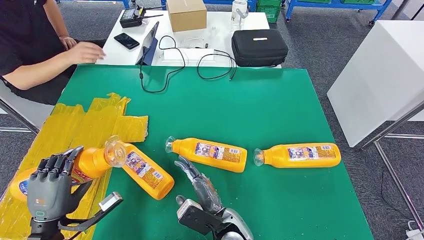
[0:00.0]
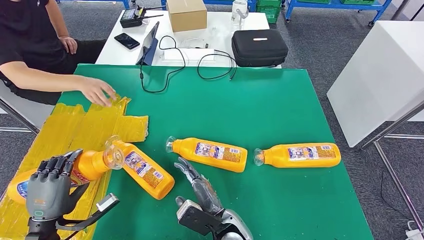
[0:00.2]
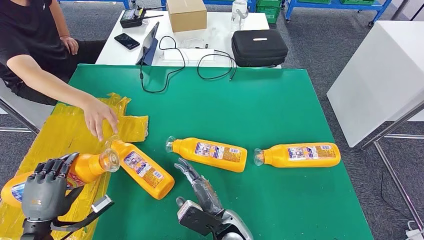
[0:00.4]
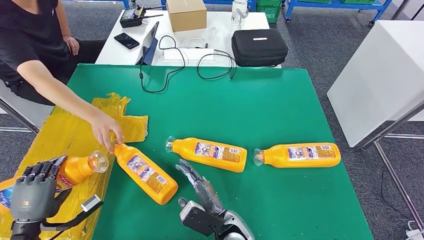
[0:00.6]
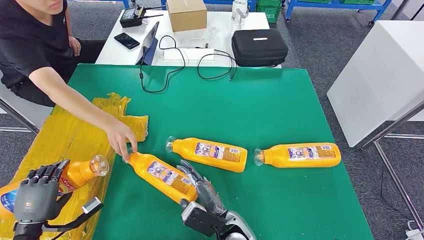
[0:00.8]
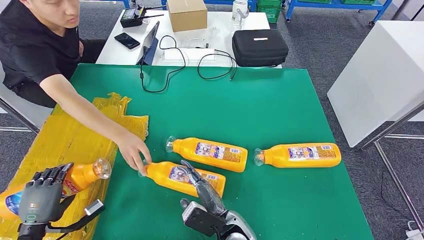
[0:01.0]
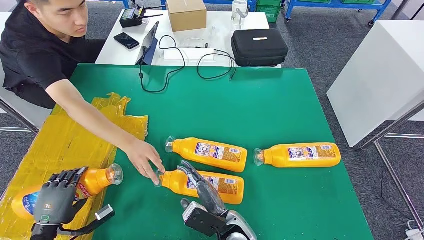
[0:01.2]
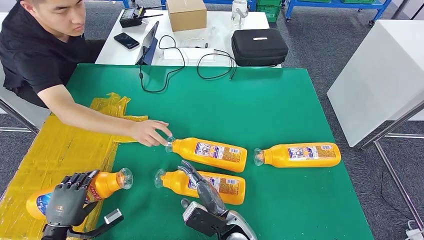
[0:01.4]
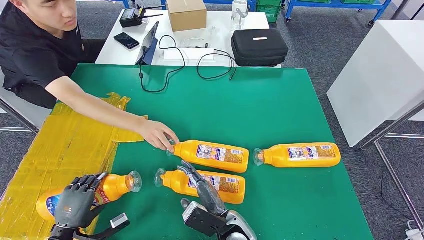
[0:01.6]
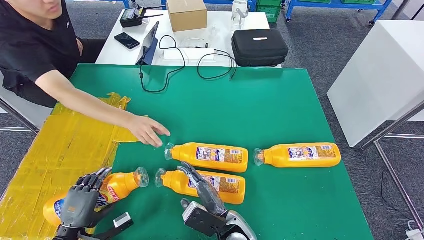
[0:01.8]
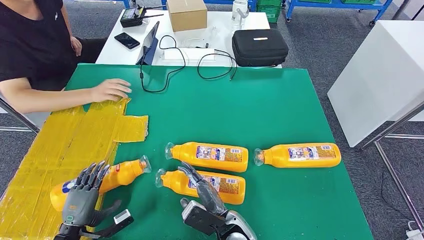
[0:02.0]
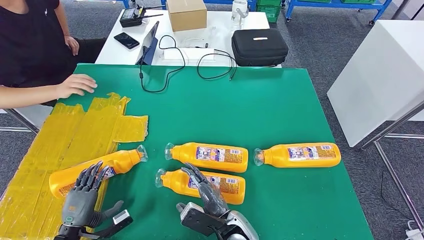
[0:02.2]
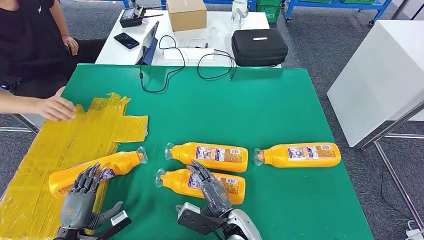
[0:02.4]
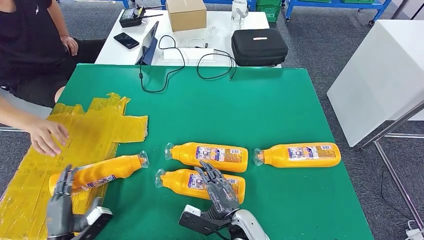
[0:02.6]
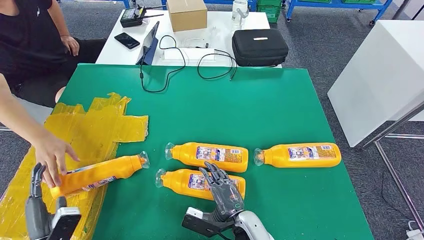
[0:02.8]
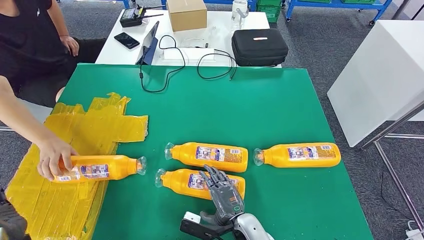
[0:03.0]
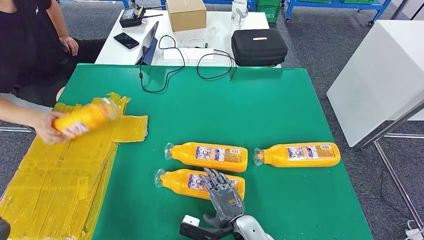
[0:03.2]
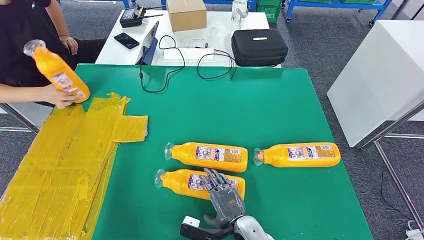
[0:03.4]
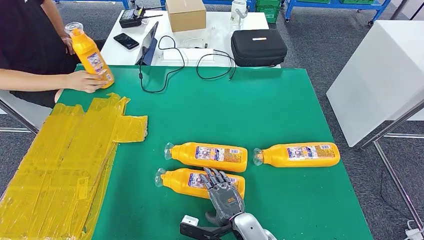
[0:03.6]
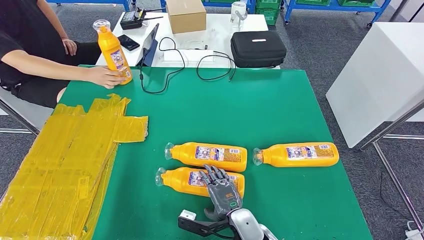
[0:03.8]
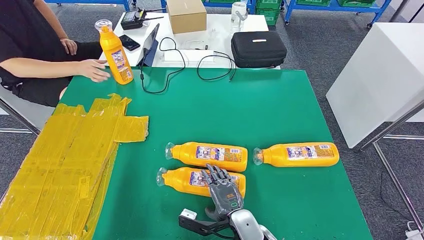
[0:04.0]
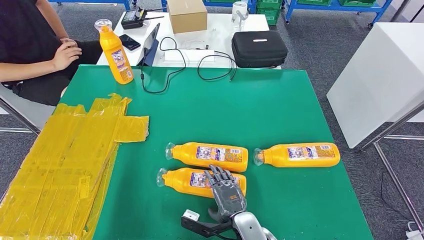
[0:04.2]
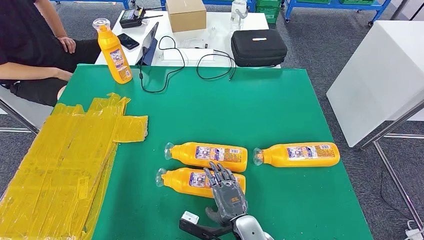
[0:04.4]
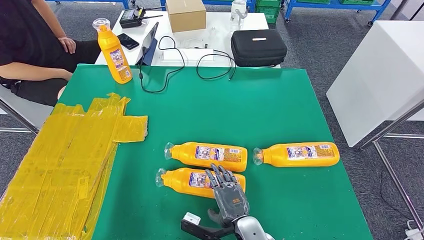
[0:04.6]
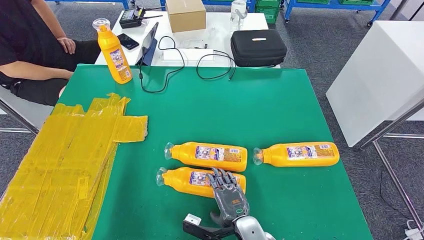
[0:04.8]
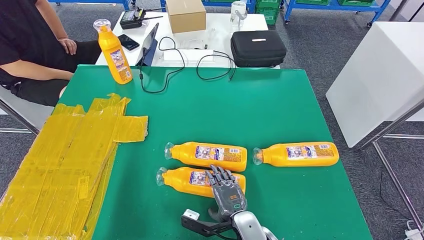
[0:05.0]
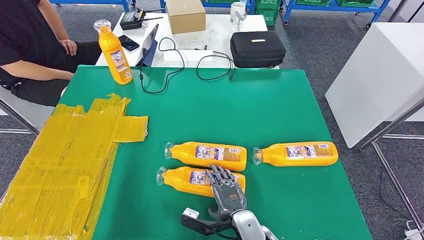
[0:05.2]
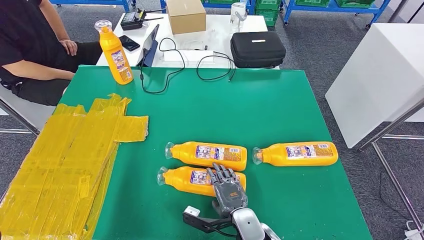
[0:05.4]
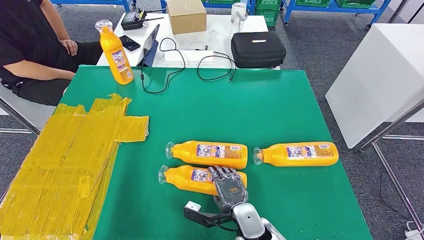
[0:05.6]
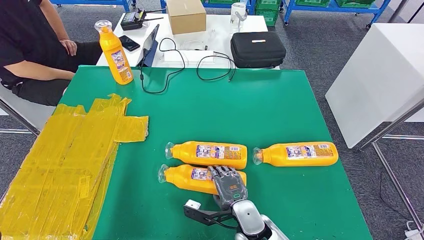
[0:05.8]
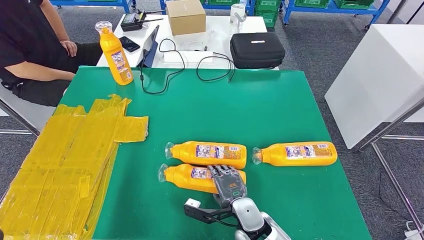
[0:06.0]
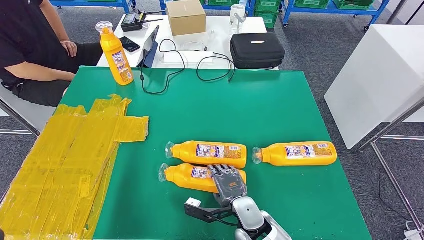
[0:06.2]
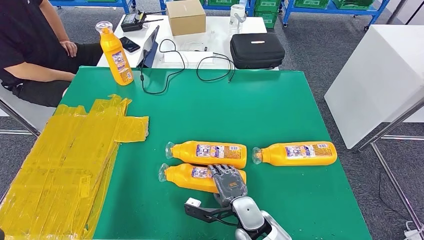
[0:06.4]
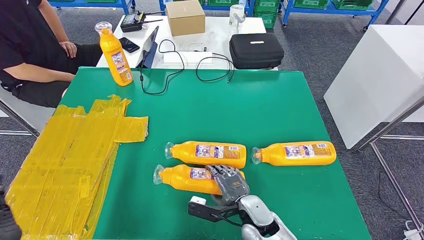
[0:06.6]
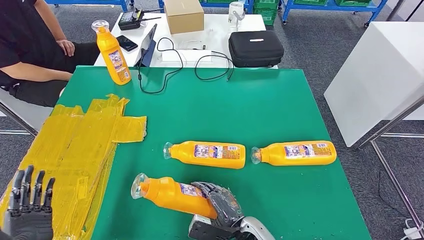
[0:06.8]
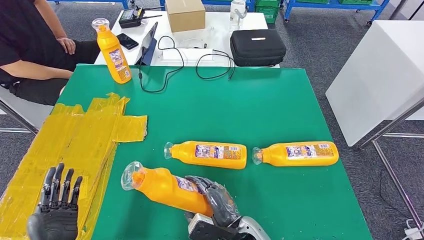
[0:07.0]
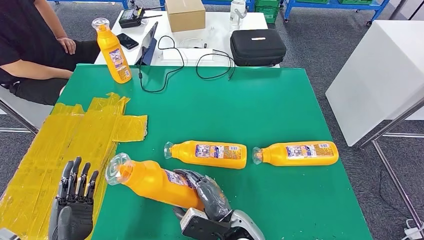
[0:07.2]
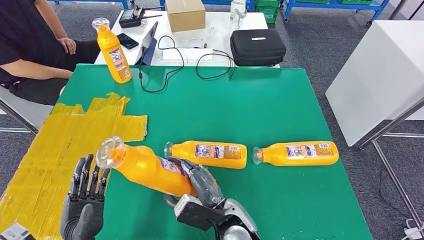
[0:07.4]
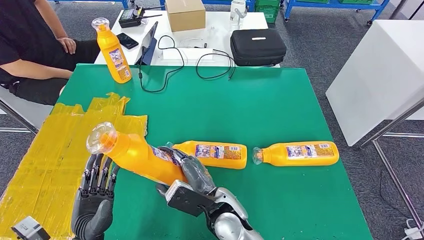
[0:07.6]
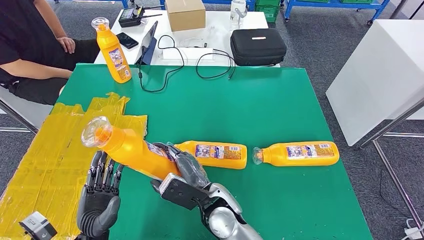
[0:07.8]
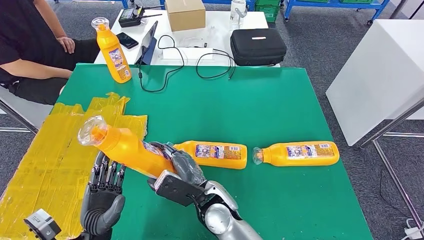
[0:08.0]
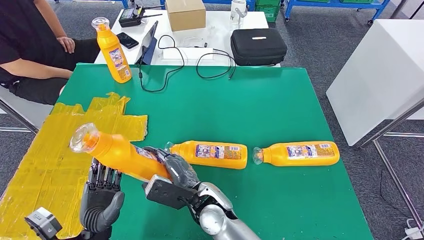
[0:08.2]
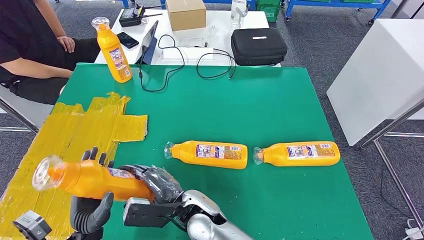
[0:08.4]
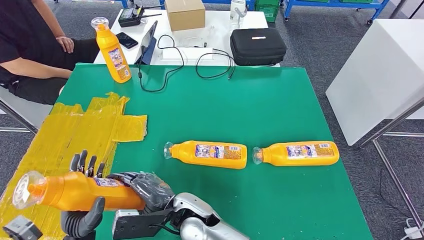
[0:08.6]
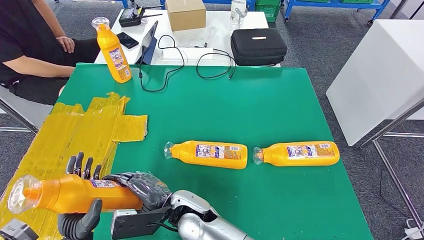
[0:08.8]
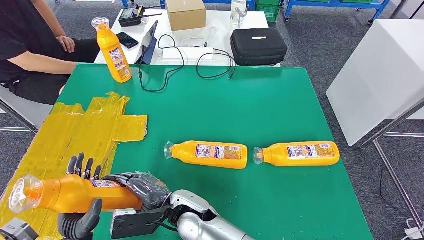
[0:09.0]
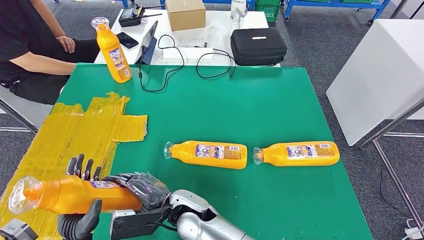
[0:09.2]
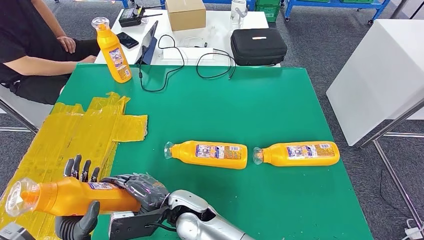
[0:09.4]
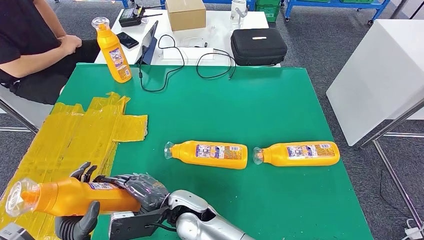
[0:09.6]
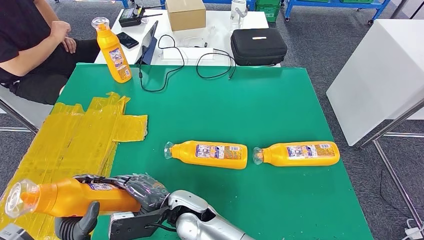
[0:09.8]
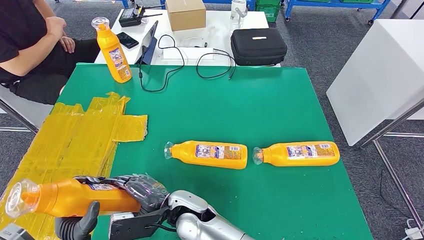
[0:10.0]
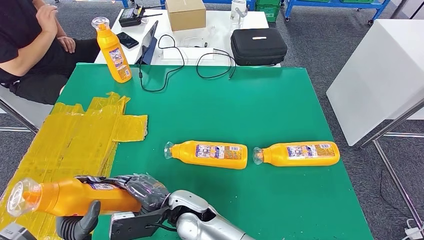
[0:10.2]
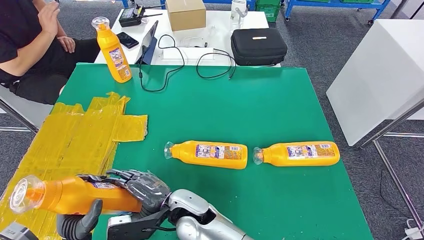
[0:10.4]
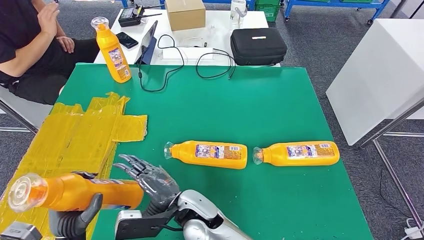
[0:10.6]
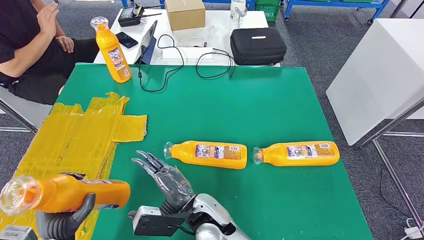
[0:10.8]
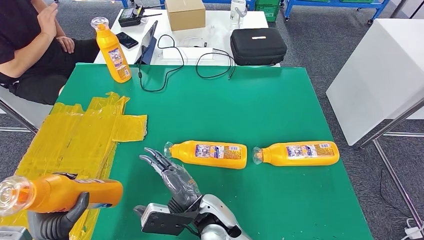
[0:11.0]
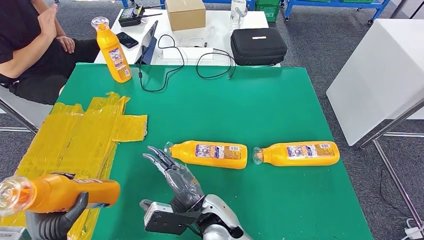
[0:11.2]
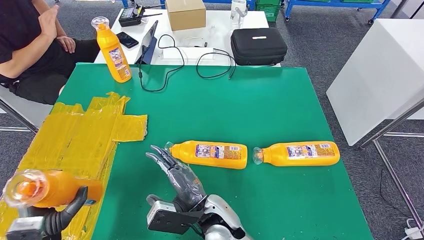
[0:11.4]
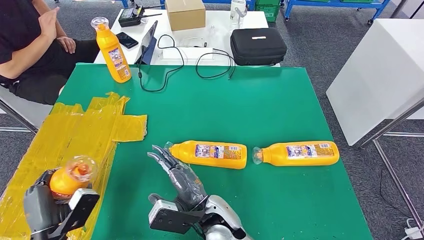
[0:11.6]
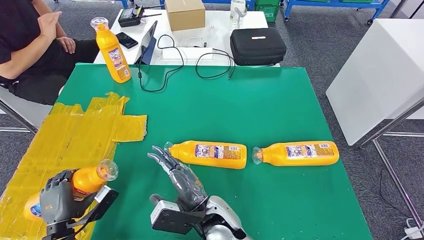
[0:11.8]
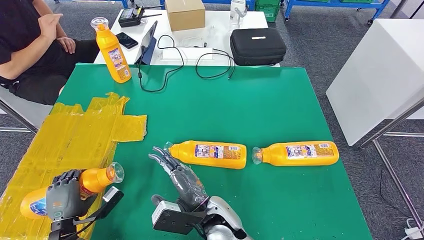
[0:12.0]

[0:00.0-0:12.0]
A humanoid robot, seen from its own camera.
Step, 0:00.0 to 0:02.4: Flip the fast-moving consumer goods bottle to the front side.
Step, 0:03.2 to 0:09.0: Pick up the fast-moving consumer goods bottle from the table.
0:01.6 to 0:03.0: The left hand heads upward, covering some 5 cm.
0:03.0 to 0:04.4: The left hand is displaced upward by approximately 5 cm.
0:04.4 to 0:06.0: The right hand ends up approximately 5 cm from where it was.
0:07.6 to 0:09.0: The right hand heads to the left, covering about 10 cm.
0:09.0 to 0:10.4: The hands stay close to where they were, moving slightly.
0:10.4 to 0:12.0: The left hand shifts approximately 10 cm to the left and downward, while the right hand moves to the right, roughly 5 cm.

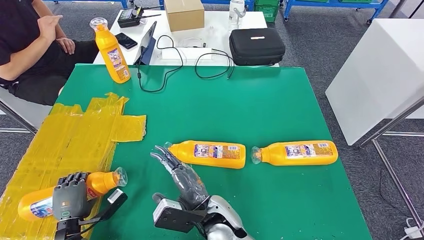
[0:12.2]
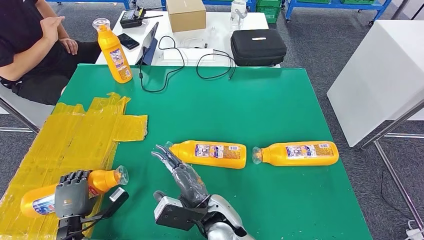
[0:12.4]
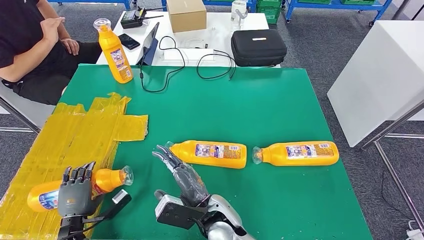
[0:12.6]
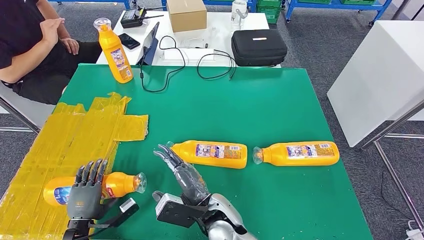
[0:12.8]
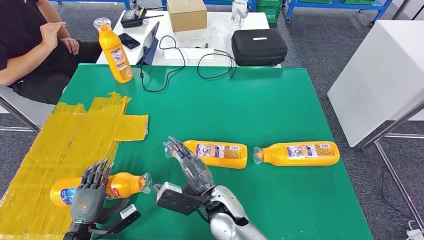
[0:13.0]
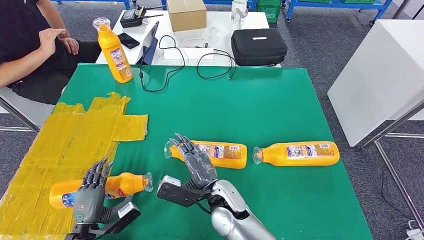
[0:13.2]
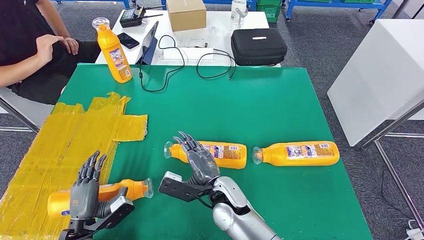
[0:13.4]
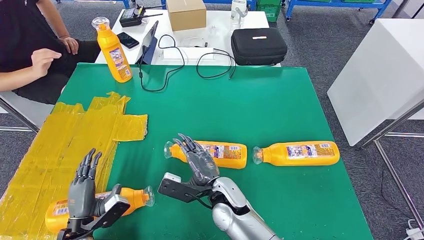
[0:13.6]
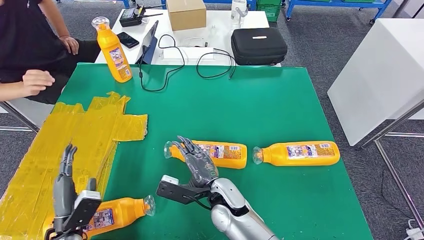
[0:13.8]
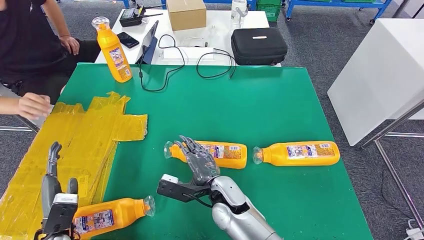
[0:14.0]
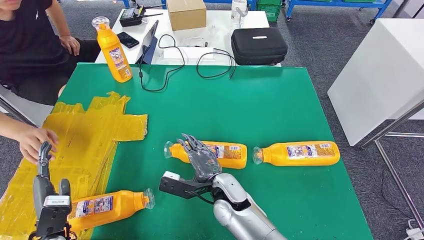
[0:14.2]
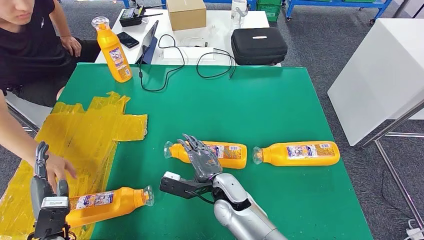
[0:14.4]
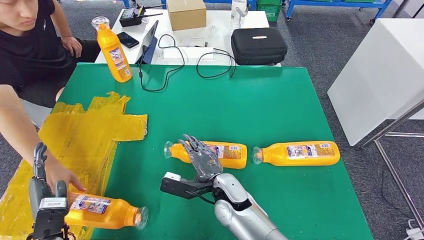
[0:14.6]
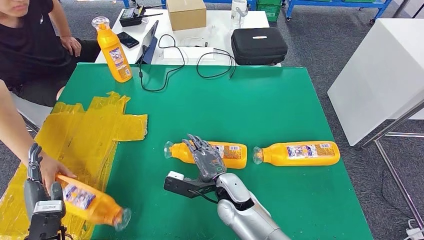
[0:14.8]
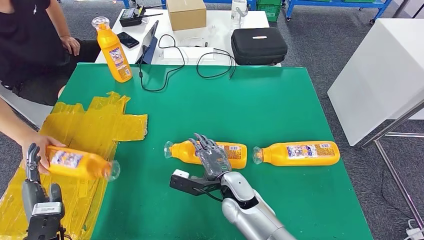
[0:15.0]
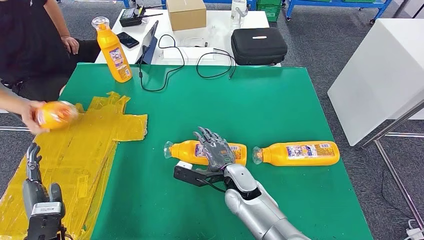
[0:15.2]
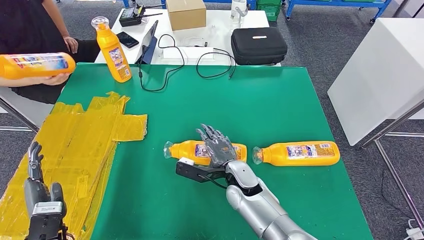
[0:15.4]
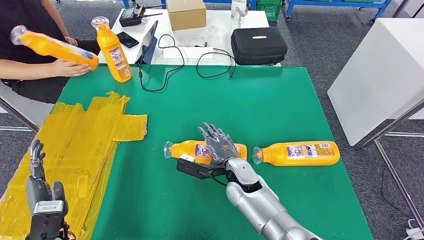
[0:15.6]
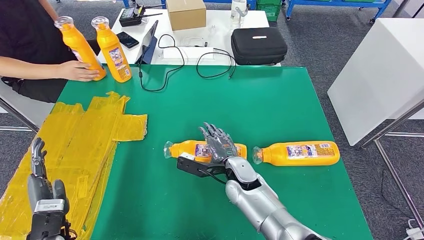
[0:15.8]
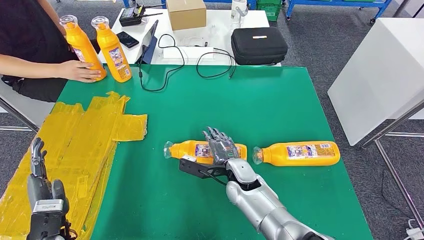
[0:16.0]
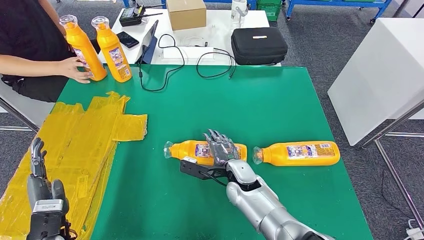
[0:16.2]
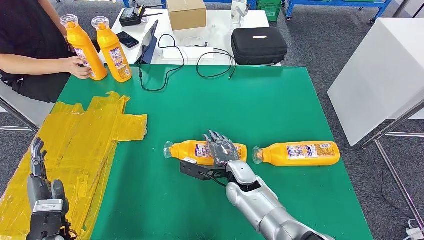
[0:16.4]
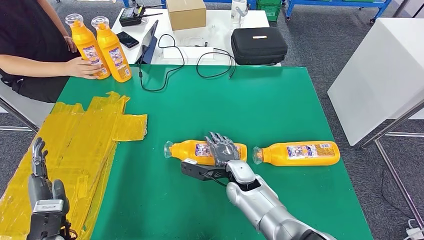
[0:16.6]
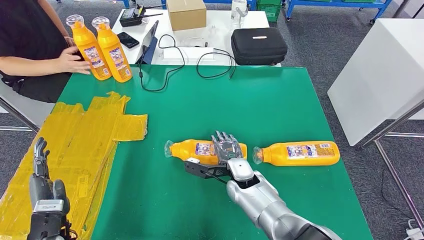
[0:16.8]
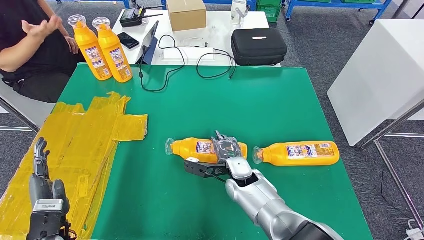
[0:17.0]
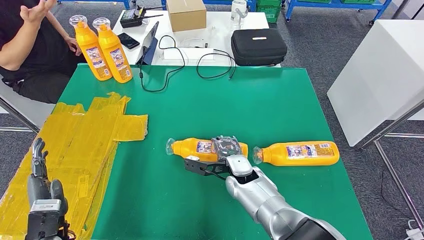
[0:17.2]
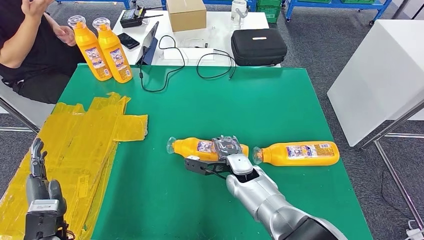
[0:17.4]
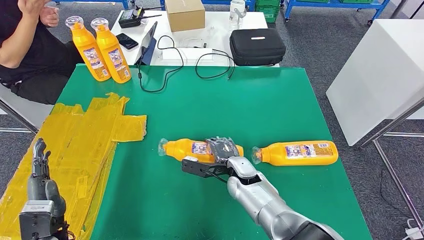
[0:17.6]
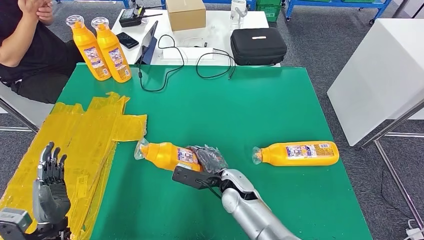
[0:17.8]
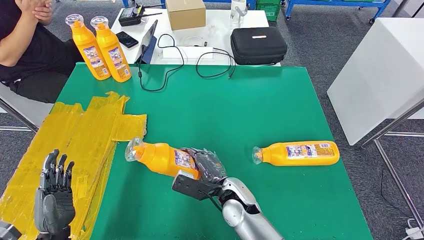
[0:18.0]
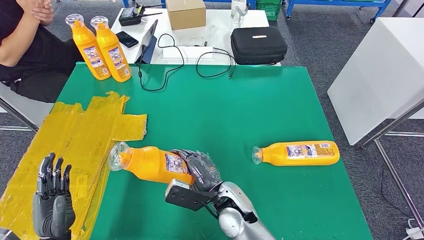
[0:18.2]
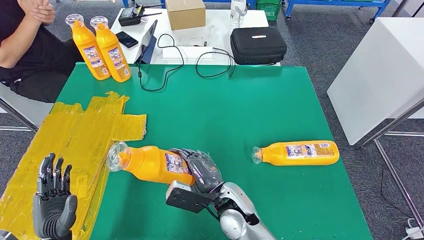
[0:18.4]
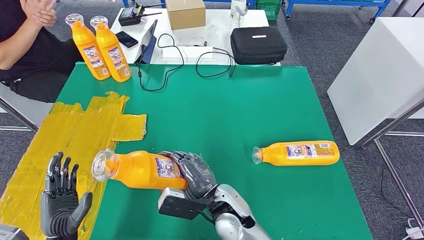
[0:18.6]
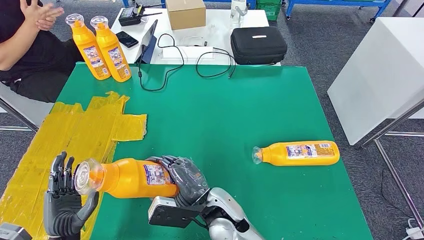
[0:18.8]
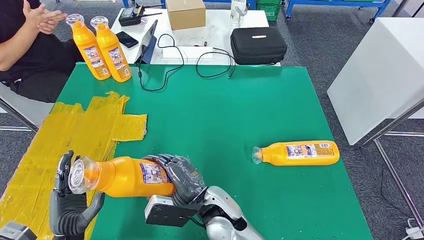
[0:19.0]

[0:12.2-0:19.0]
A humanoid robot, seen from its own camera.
0:13.6 to 0:15.0: The left hand shifts some 5 cm upward.
0:15.0 to 0:16.2: The hands move only a little.
0:16.2 to 0:17.6: There are only small adjustments of the hands.
